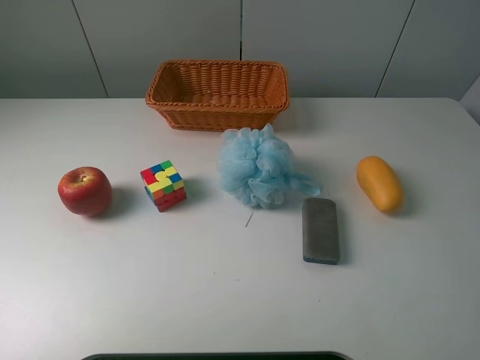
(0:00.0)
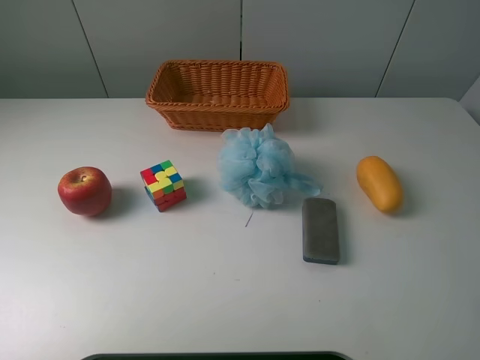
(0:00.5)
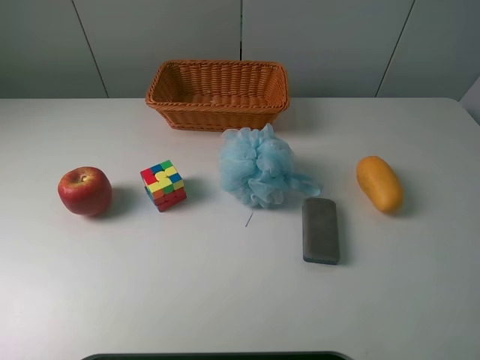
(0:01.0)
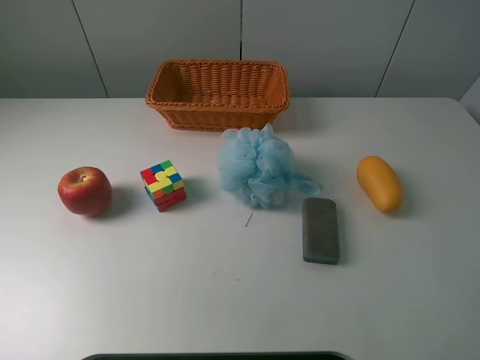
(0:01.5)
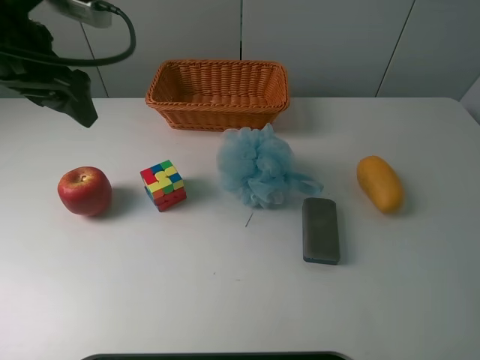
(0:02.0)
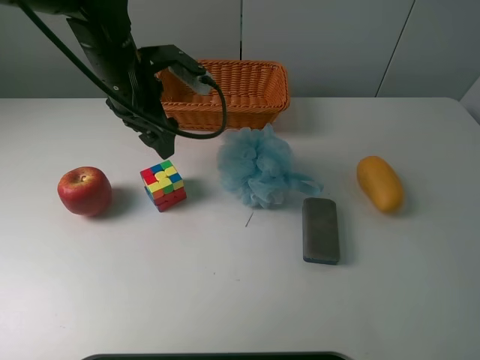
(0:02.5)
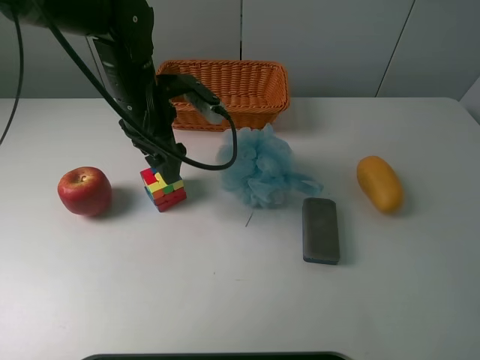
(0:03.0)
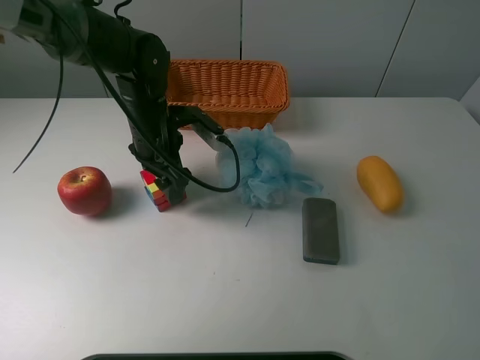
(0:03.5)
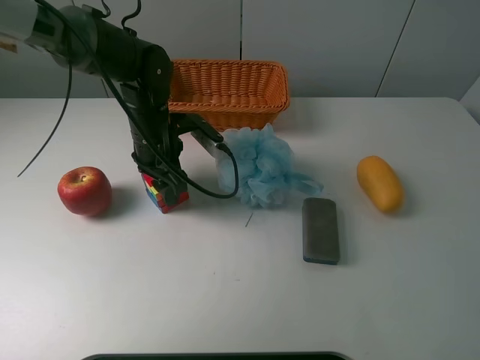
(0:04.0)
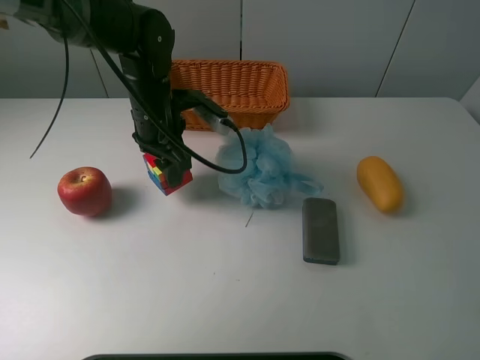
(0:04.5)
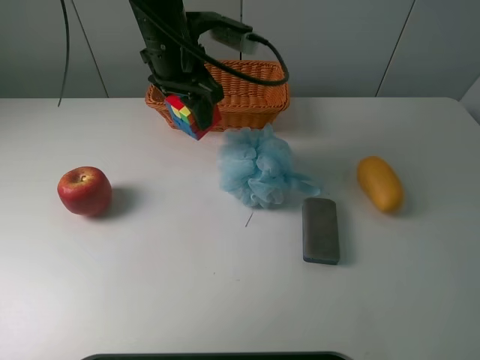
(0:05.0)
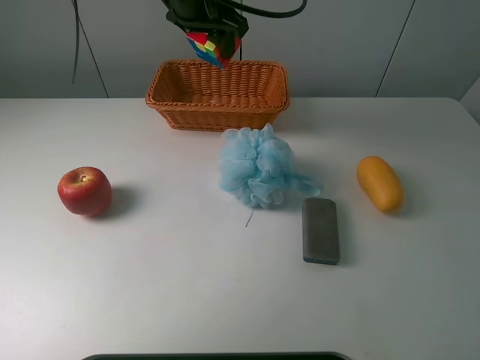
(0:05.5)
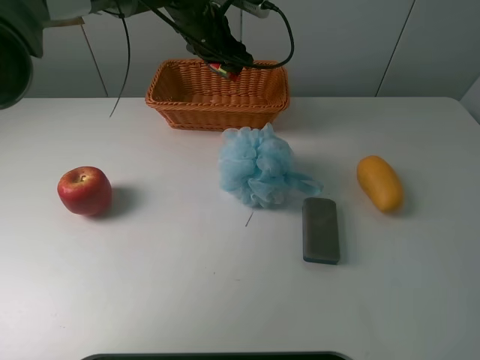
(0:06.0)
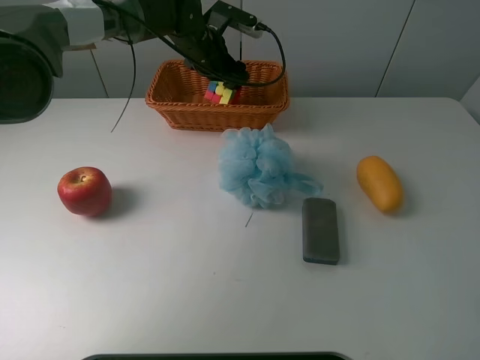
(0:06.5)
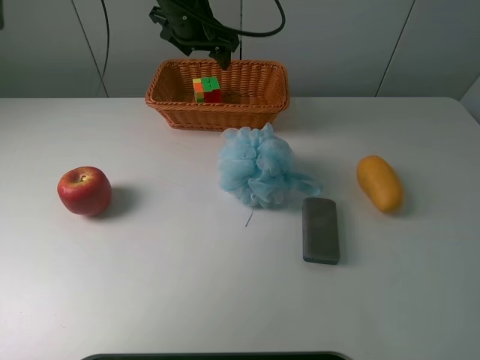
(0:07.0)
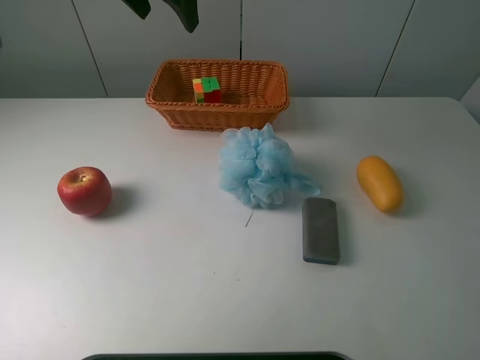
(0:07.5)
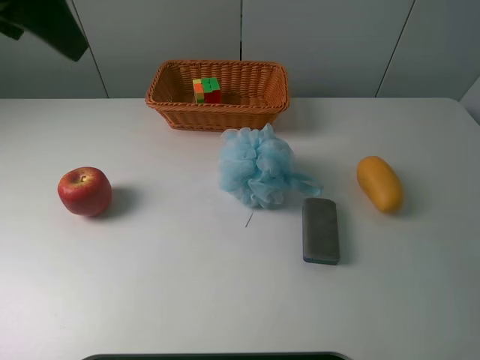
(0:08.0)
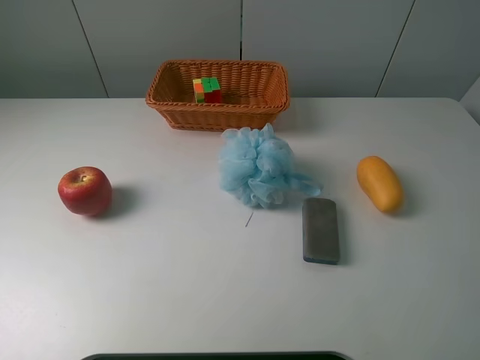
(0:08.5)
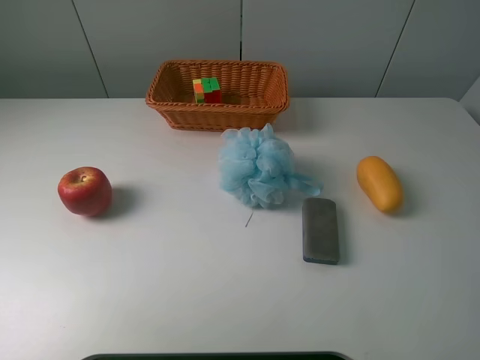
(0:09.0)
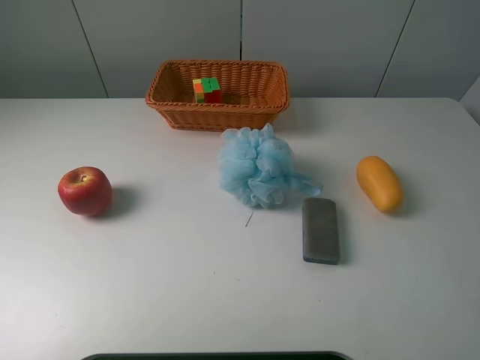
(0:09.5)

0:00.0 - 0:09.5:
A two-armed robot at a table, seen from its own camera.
Task of the whole recording: use a picker to grab the item closest to the apple and place it in the basket.
Step, 0:00.0 - 0:04.0: Grasp the Rubik's Cube with the left gripper.
Step, 0:04.5 - 0:07.0: Place the Rubik's Cube into the basket with the left gripper.
0:00.0 - 0:02.0: The left gripper is displaced forward by approximately 30 cm.
0:02.0 - 0:04.0: The left gripper shifts about 20 cm downward and to the right, and closes.
0:04.0 - 0:05.5: The left gripper goes approximately 20 cm upward and forward.
0:05.5 - 0:07.5: The left gripper moves upward, to the left and backward, approximately 10 cm, and opens.
